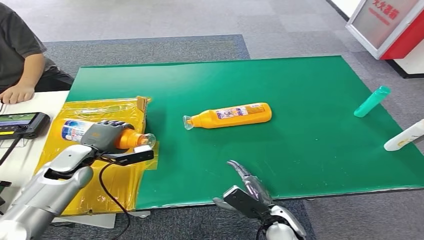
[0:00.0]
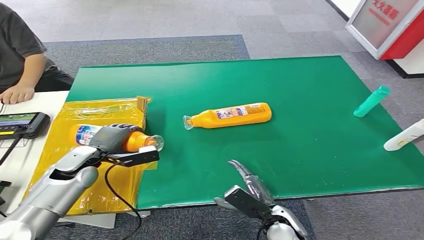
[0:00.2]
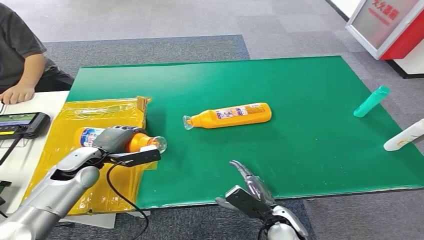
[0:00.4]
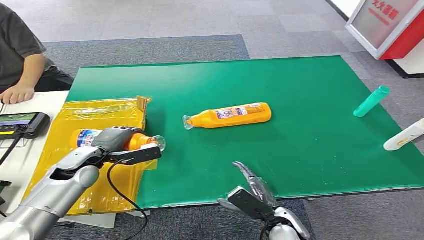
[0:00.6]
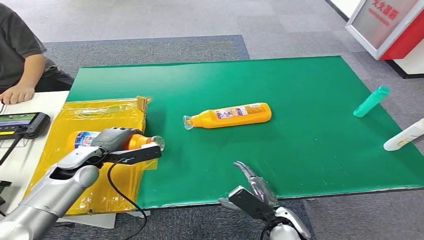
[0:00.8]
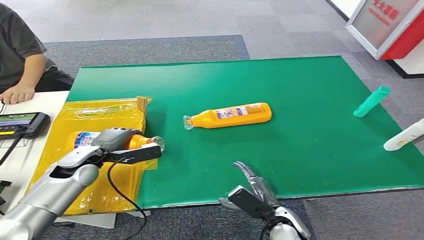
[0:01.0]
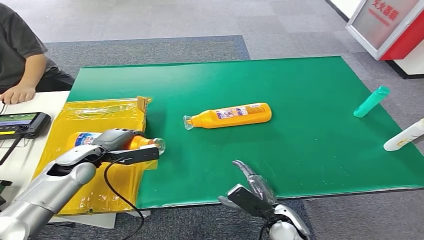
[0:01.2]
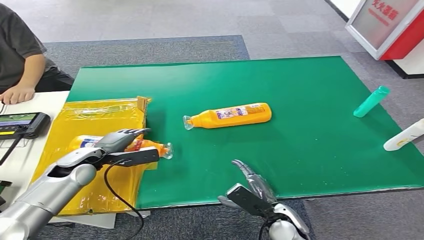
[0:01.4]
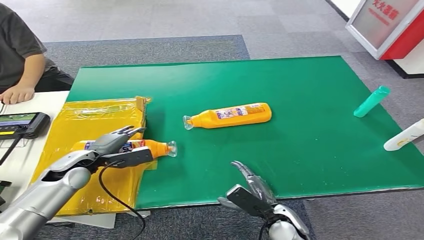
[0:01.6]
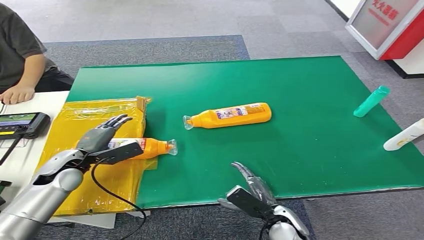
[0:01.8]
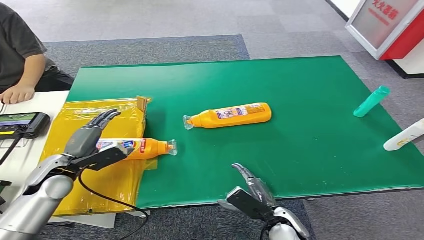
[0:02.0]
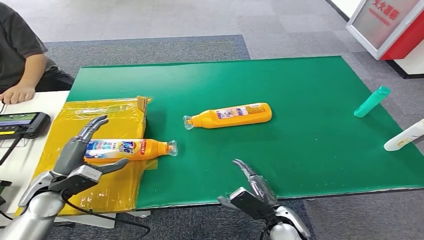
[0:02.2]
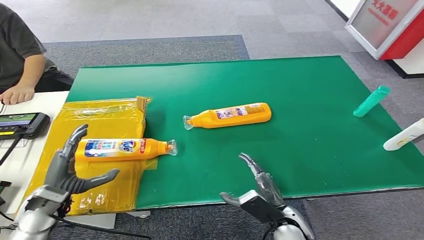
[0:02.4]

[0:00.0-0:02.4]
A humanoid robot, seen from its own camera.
Step, 0:00.0 to 0:02.4: Turn the bottle to the front side.
0:01.2 to 0:02.4: The left hand travels backward by about 10 cm.
